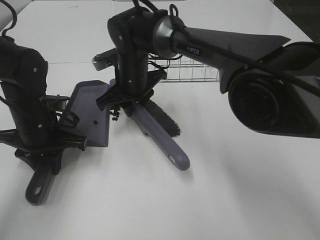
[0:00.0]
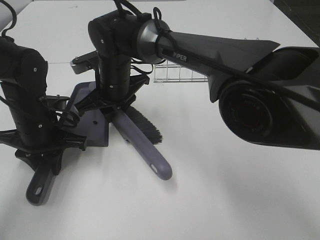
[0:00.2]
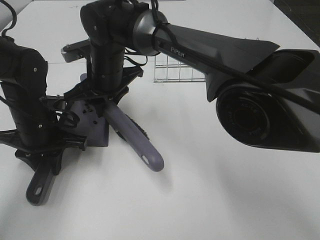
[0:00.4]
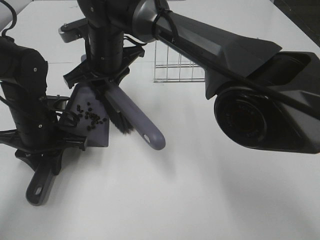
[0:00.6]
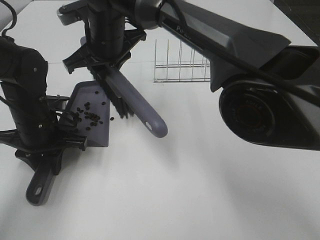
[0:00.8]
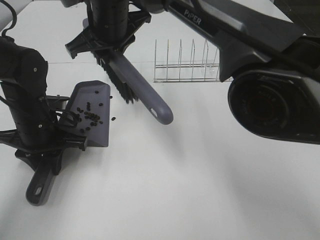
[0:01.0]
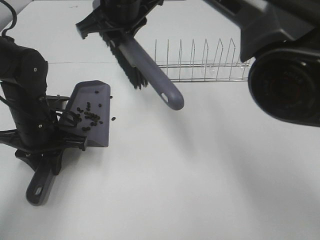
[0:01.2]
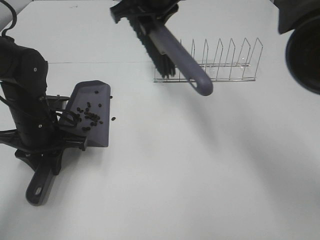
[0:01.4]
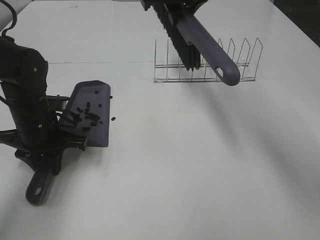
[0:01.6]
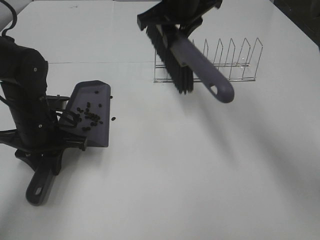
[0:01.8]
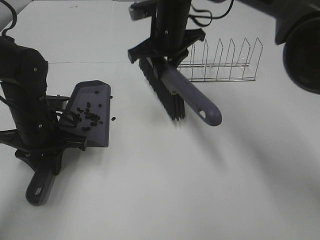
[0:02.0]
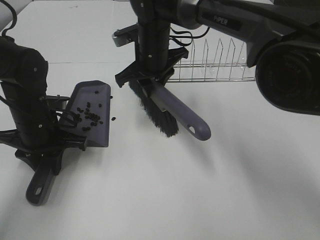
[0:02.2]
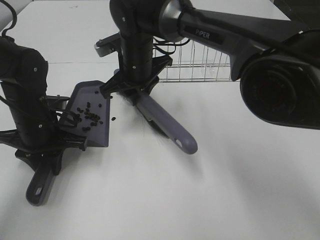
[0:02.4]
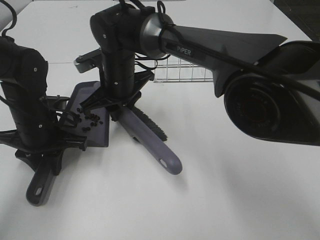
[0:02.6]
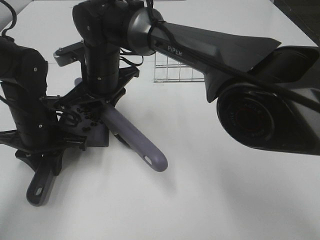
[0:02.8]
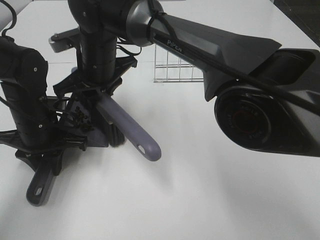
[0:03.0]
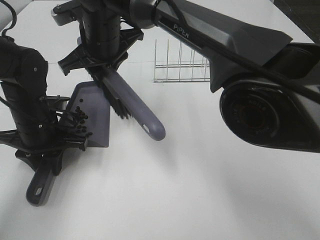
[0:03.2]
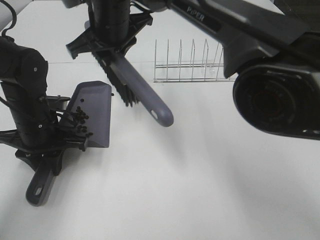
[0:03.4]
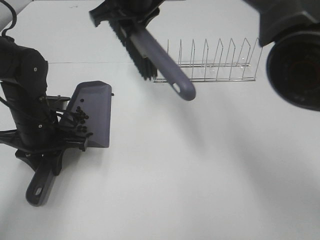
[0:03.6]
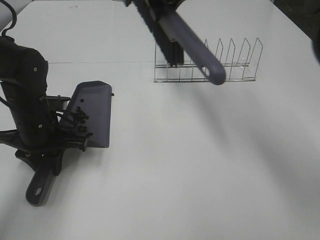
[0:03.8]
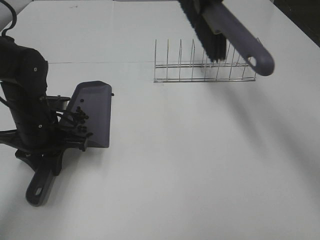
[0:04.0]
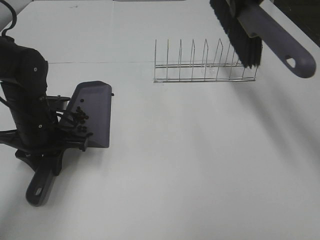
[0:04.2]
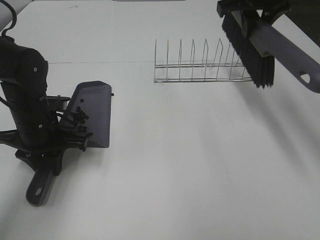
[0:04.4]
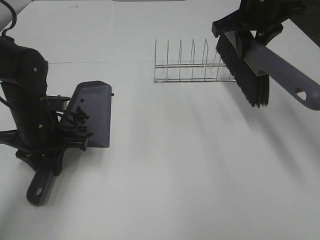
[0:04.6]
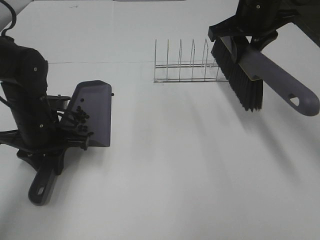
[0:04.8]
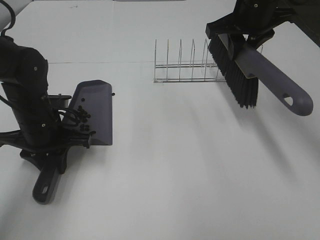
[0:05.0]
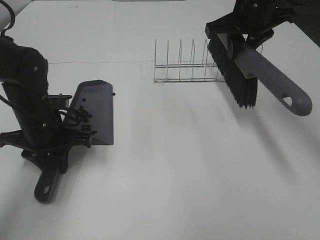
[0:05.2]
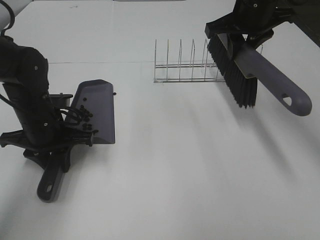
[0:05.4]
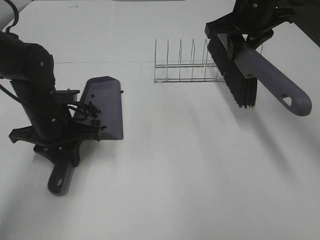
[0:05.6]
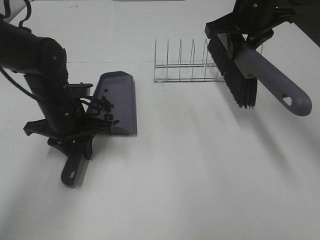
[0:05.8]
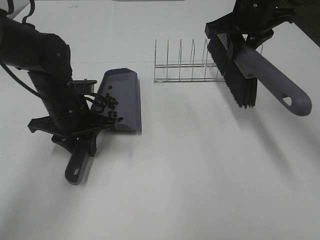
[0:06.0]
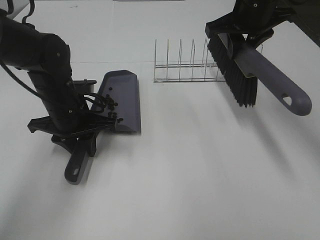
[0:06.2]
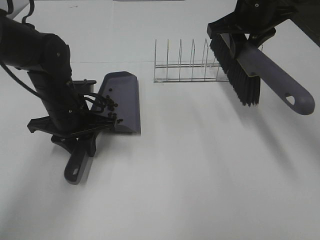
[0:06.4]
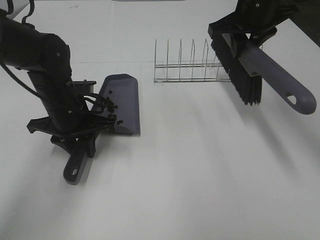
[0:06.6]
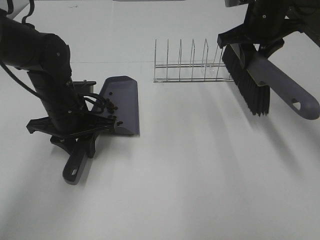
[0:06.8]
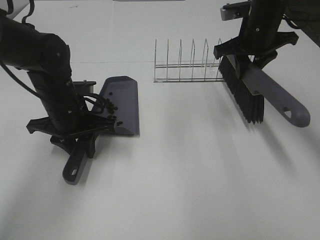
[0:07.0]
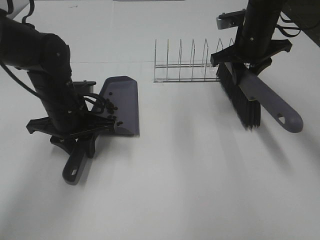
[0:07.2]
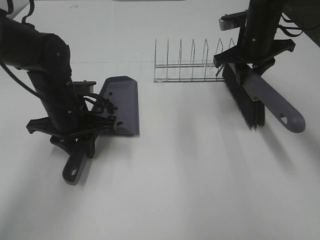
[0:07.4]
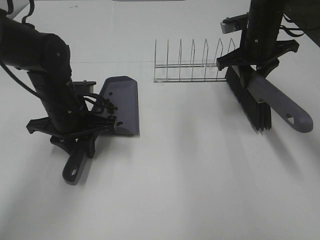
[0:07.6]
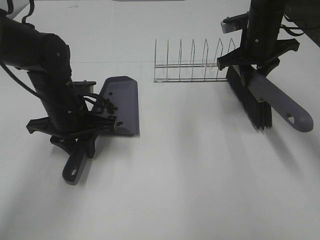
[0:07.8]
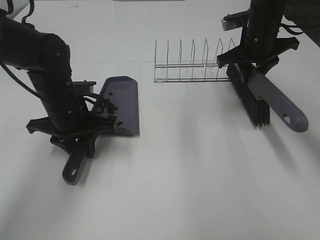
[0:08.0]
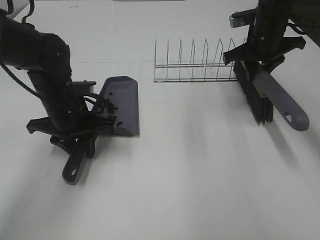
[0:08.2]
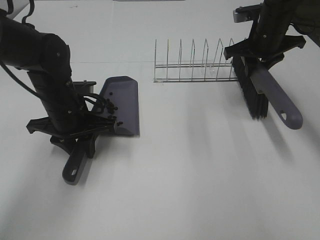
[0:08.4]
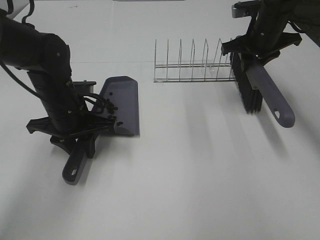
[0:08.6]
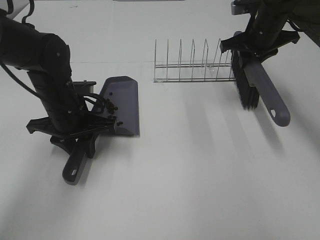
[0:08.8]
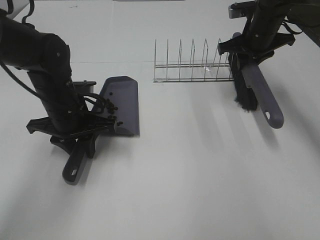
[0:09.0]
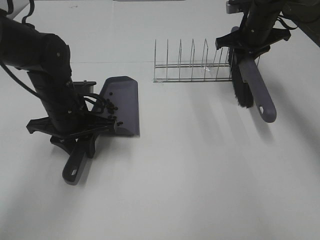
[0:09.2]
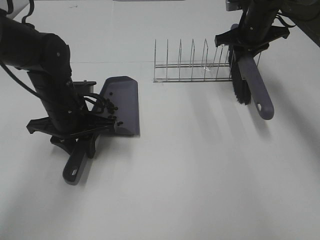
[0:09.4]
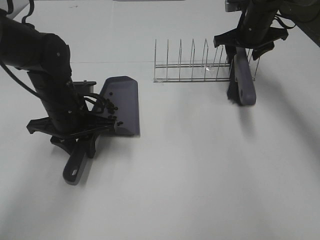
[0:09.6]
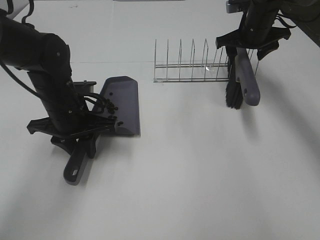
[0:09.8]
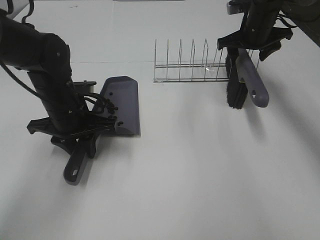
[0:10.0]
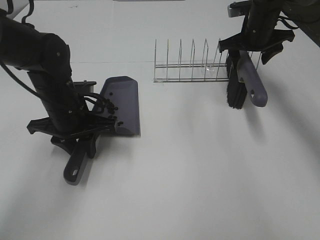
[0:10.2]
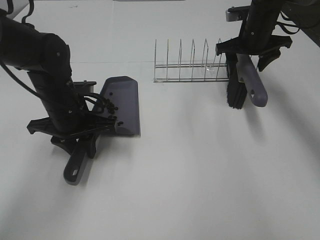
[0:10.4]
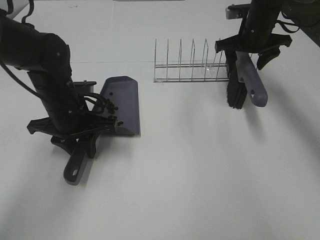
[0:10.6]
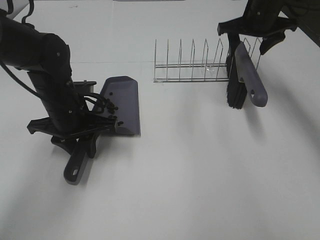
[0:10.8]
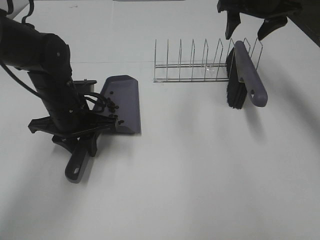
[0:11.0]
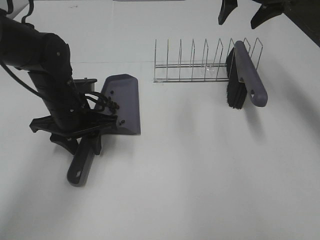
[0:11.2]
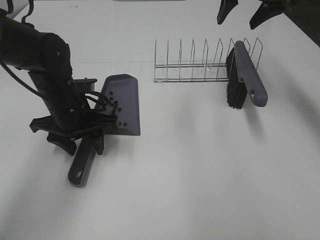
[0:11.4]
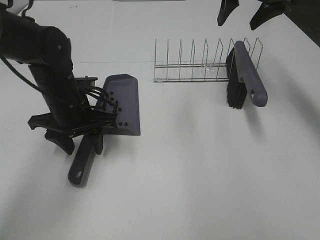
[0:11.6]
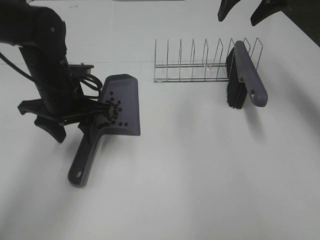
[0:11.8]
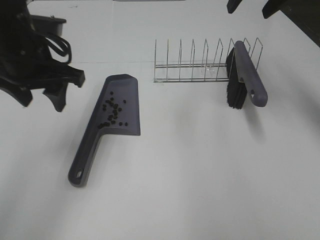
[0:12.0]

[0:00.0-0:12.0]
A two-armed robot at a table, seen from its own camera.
Task of the whole recording: Sweep Coffee Bean.
Step, 0:00.0 to 0:03.2: Right hand:sweep the coffee beans into the dustpan.
Step, 0:03.4 to 0:10.0: Right hand:place the broom on the rack.
0:00.0 to 0:01.6: The right gripper shifts about 20 cm upward and to the right.
0:01.6 to 0:03.0: The right gripper heads to the left and downward, covering approximately 20 cm.
0:03.0 to 0:04.4: The right gripper travels to the right and upward by about 30 cm.
0:04.4 to 0:06.0: The left gripper changes place by about 5 cm.
0:06.0 to 0:07.6: The right gripper heads downward, covering about 5 cm.
0:07.6 to 0:09.0: The right gripper moves some 5 cm.
0:09.0 to 0:10.4: The right gripper opens up.
0:10.4 to 0:12.0: The left gripper is displaced upward by approximately 15 cm, and opens; the right gripper shifts approximately 20 cm upward and backward.

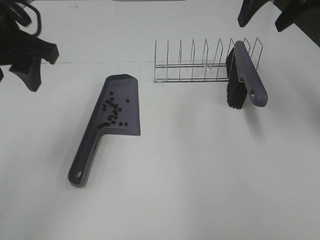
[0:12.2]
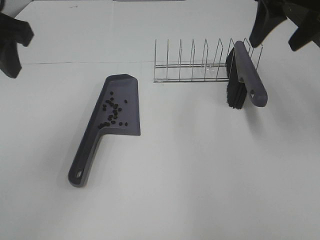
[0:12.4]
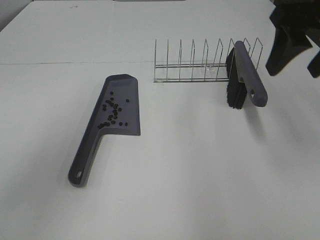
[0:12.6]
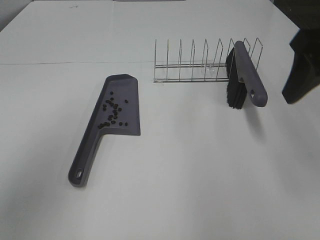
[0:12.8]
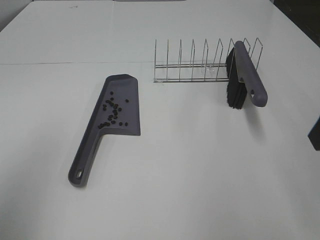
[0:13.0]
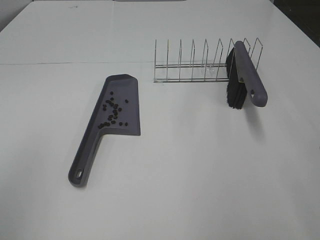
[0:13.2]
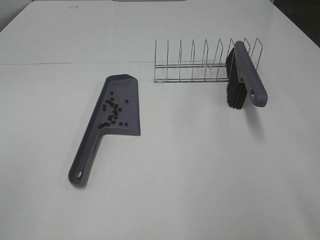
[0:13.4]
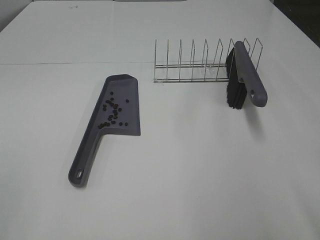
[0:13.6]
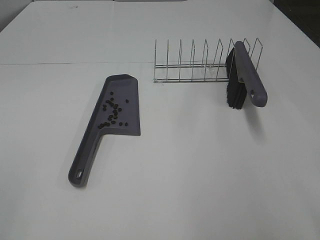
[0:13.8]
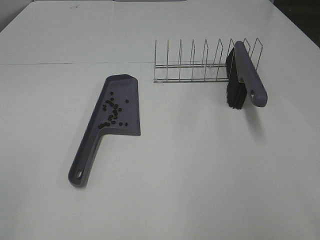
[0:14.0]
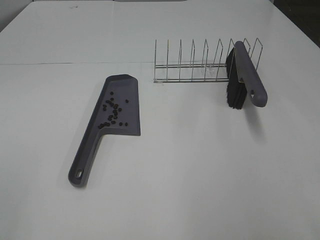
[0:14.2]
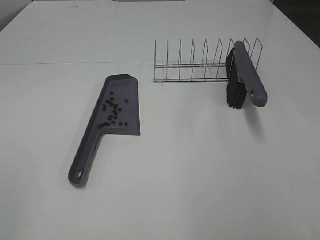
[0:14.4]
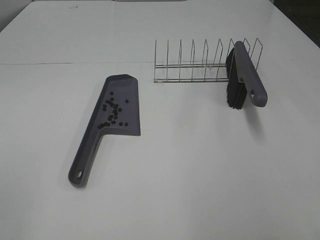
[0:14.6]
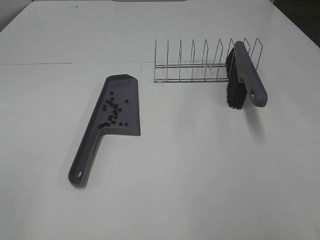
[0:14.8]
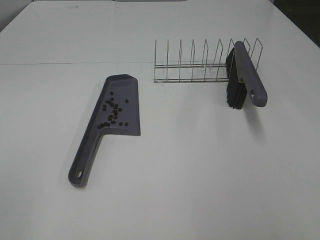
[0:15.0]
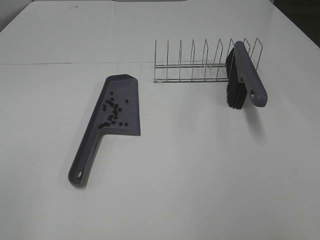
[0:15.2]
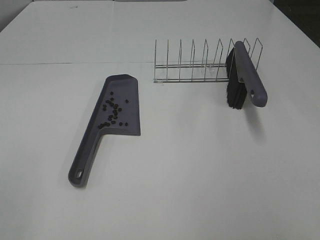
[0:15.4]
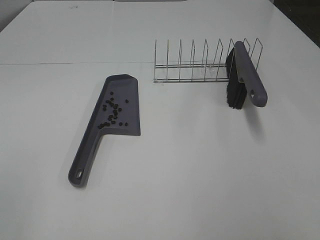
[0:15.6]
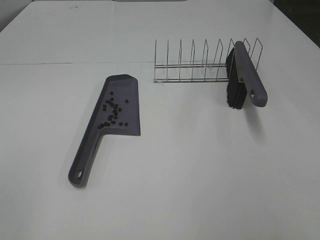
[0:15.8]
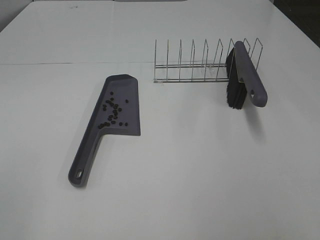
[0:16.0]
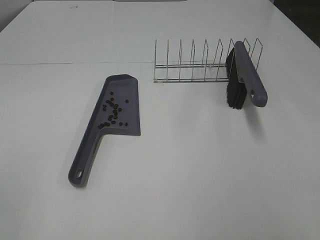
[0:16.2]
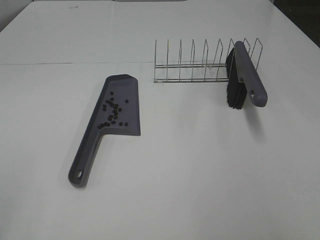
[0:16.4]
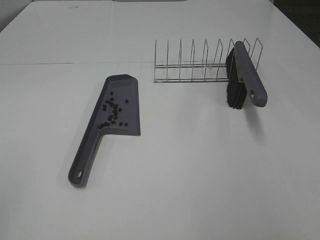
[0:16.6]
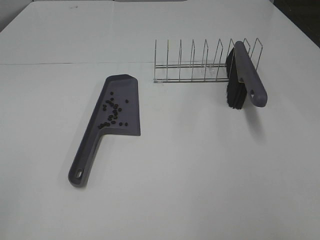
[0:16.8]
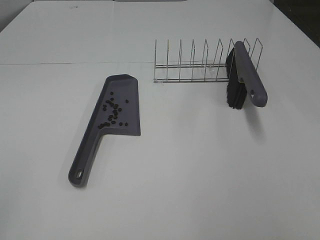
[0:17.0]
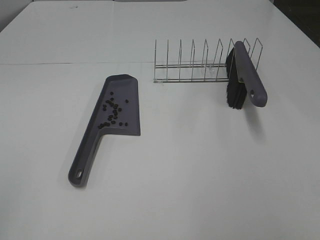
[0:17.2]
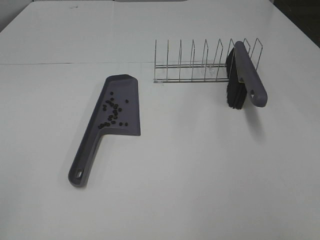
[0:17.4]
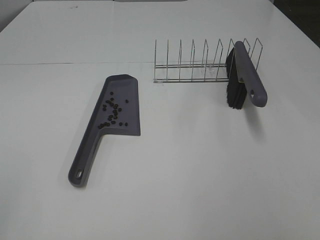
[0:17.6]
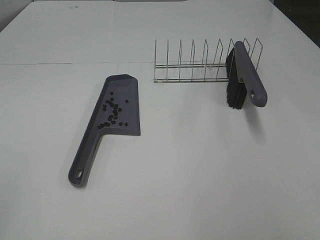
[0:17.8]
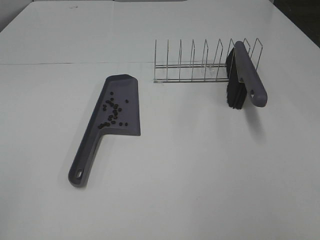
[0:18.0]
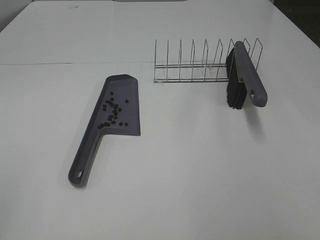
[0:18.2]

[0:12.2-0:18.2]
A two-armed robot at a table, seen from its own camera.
Task of the whole recording: Sweep Coffee Bean.
0:12.2 to 0:13.8: The left gripper goes approximately 30 cm backward and to the left; the right gripper moves backward, approximately 35 cm.

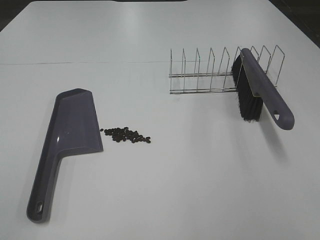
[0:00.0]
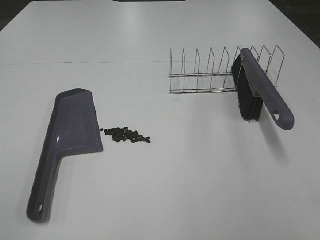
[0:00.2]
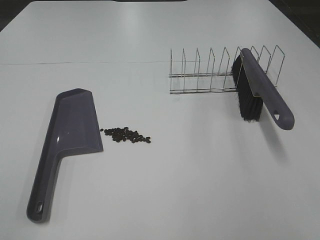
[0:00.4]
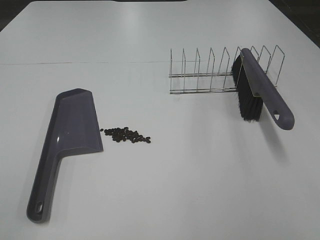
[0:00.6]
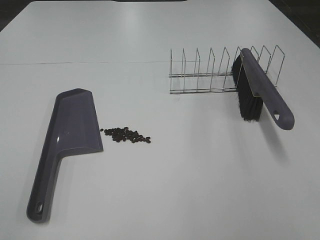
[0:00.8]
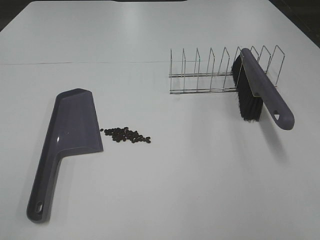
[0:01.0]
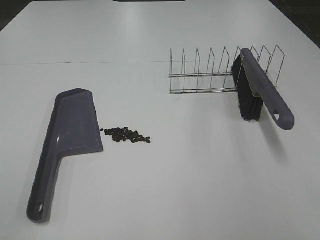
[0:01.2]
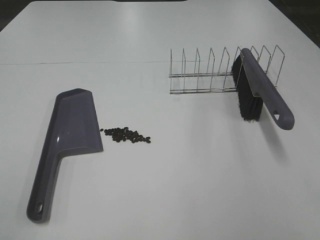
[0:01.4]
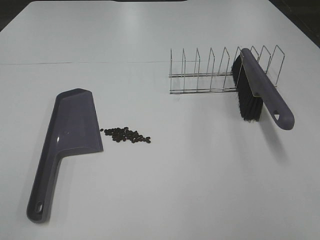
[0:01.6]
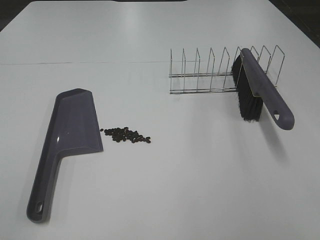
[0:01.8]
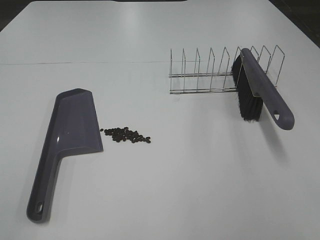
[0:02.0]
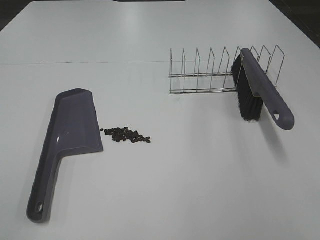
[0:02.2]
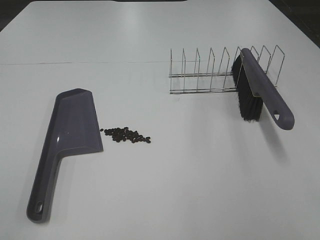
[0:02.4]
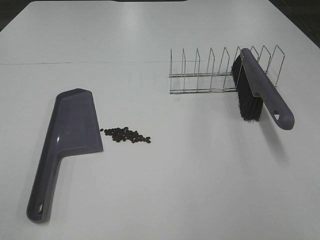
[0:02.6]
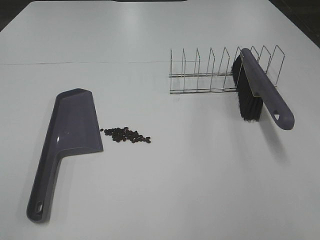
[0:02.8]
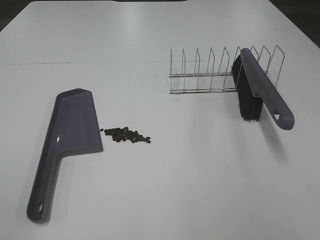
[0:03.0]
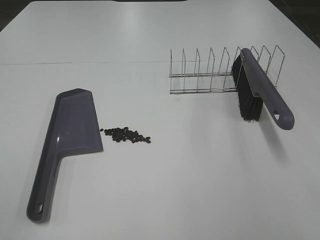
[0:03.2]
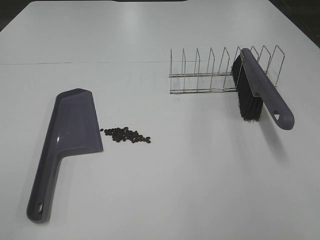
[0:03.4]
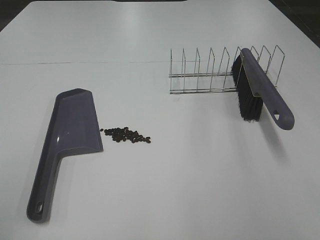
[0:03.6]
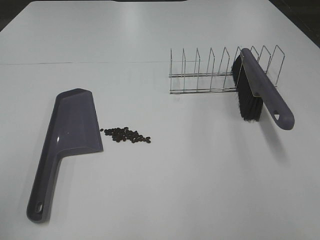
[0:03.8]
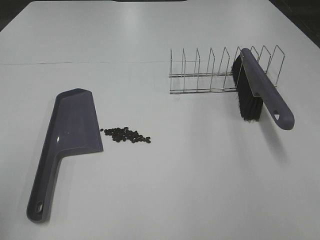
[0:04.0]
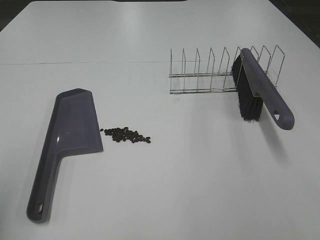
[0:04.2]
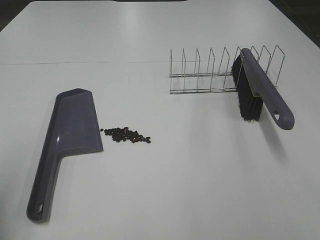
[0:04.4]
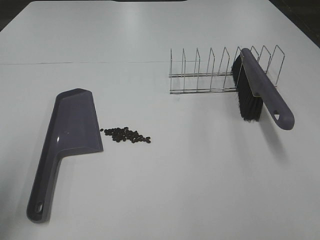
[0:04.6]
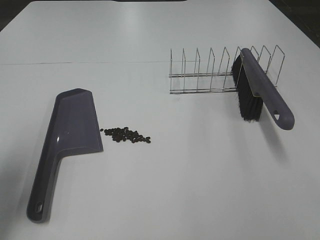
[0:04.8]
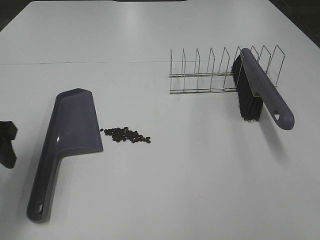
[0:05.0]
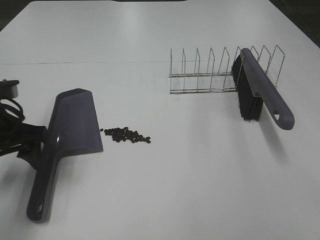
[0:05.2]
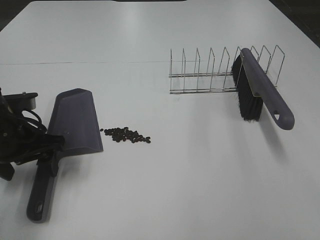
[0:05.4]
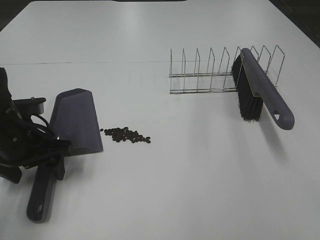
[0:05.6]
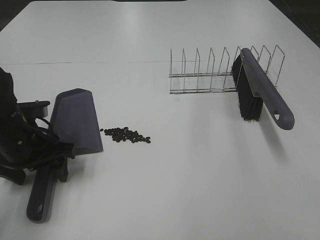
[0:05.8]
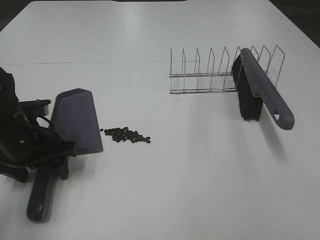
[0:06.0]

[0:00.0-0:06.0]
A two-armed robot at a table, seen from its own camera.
Task of the whole recording: Sweep Coffee Bean.
0:00.0 to 0:03.0: Both grippers stay about where they are.
0:04.4 to 0:06.0: The left gripper shifts roughly 25 cm forward, downward and to the right.
